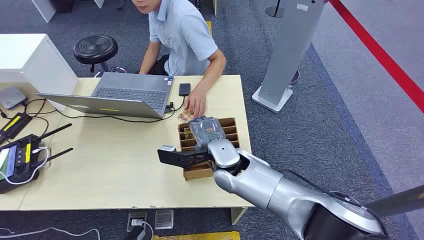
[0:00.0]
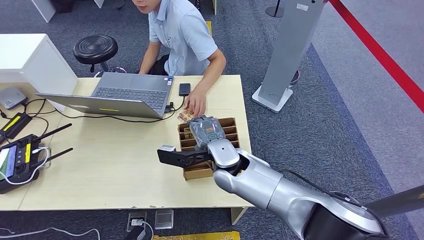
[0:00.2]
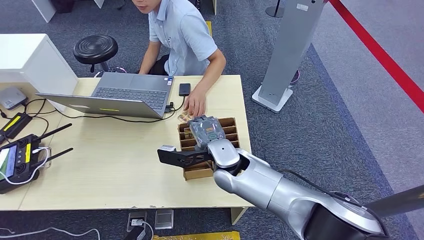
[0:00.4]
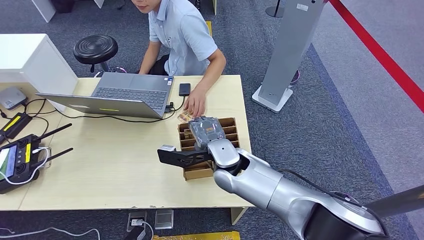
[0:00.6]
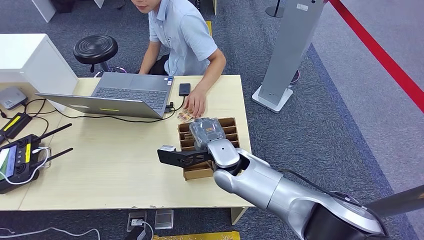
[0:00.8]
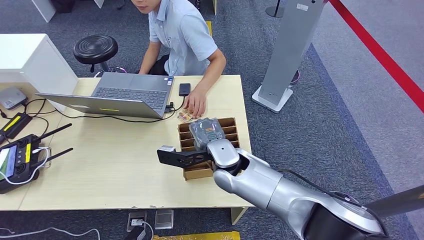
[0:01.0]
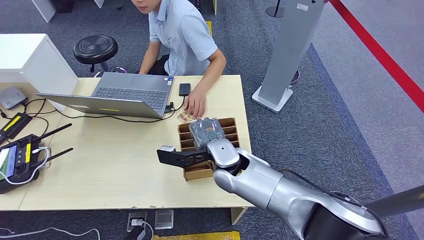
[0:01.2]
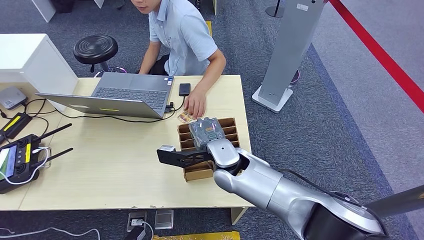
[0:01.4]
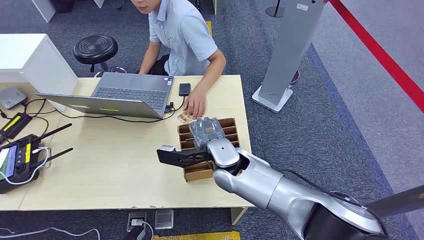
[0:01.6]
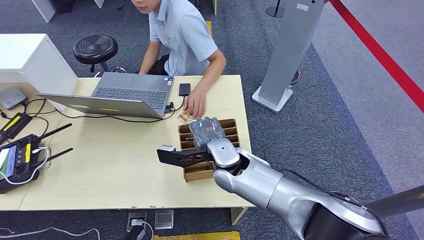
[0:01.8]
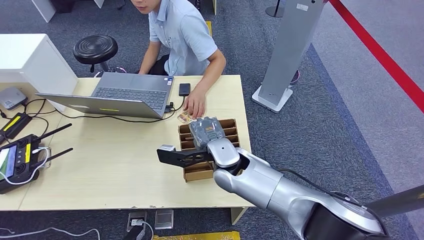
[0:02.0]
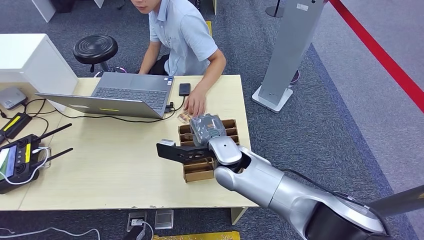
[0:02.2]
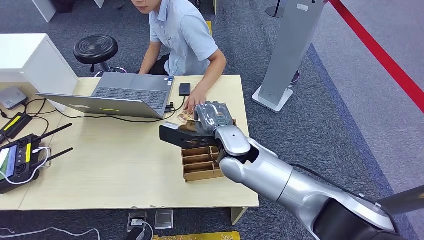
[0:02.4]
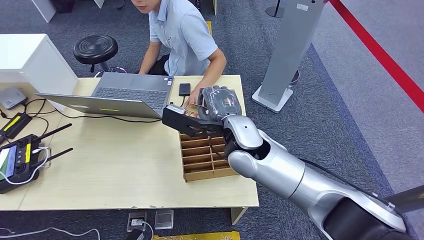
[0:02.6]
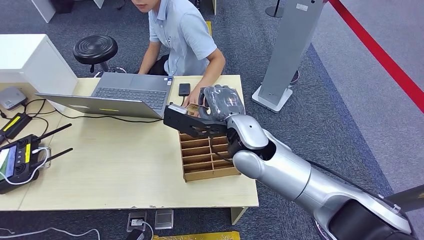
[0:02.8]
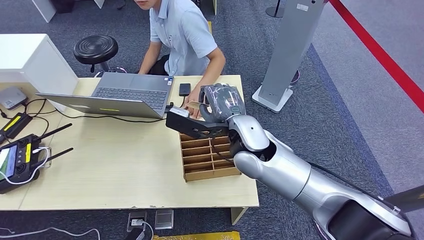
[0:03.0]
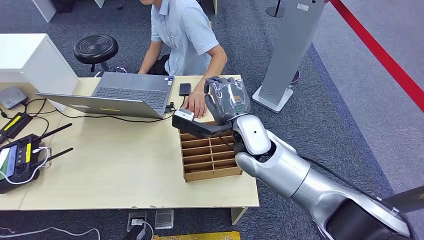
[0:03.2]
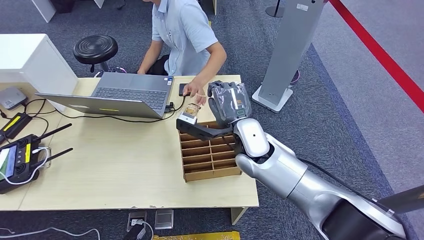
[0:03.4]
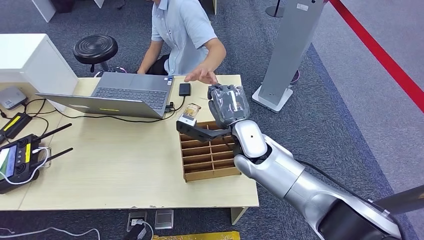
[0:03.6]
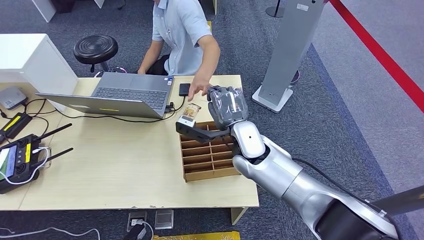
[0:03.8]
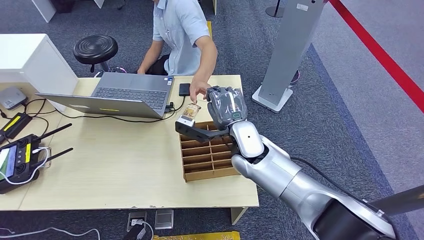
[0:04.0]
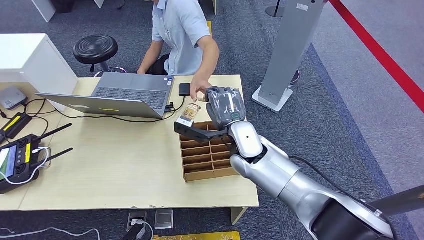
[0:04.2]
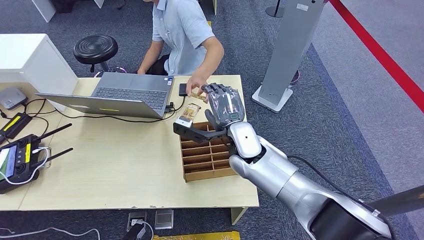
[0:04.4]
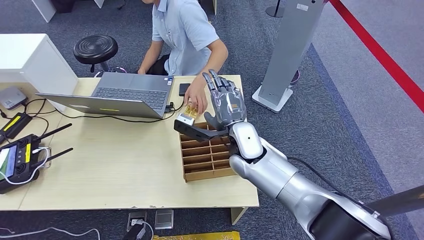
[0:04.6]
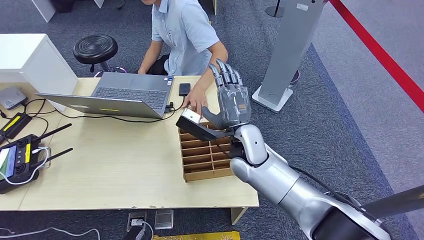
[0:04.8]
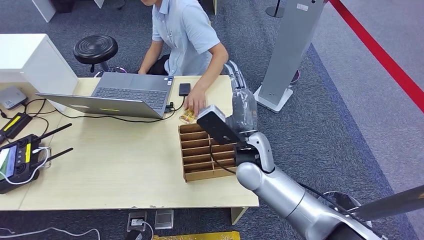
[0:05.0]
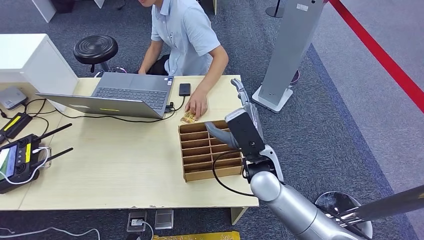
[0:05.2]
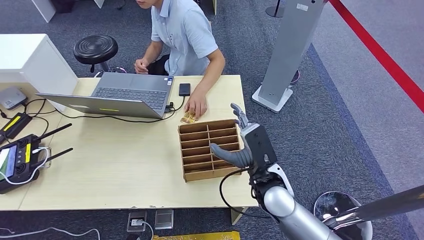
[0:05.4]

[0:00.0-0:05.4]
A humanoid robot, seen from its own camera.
Step, 0:00.0 to 0:02.6: Pick up the room card from the card holder.
Step, 0:03.0 to 0:05.4: Hand the room card to the target.
0:01.4 to 0:02.8: The right hand goes some 10 cm upward.
0:02.8 to 0:04.0: The right hand shifts roughly 5 cm downward.
0:04.0 to 0:05.4: The right hand goes roughly 10 cm backward and to the right.
